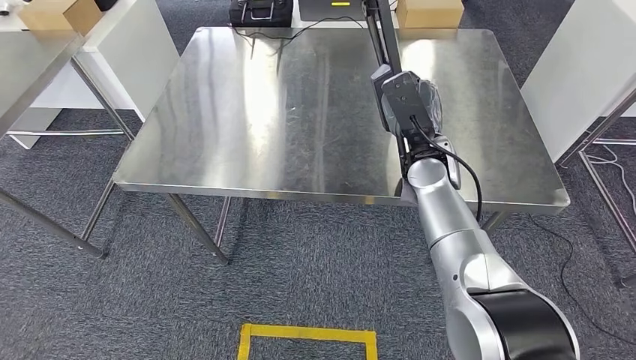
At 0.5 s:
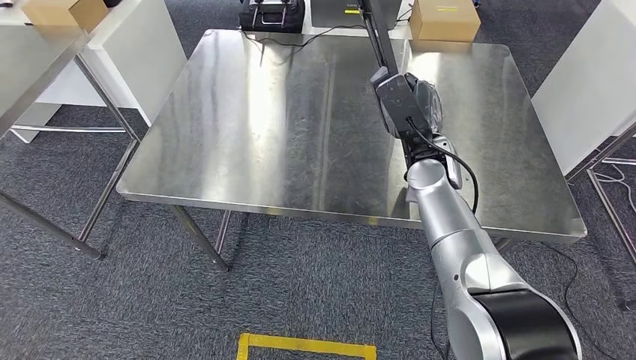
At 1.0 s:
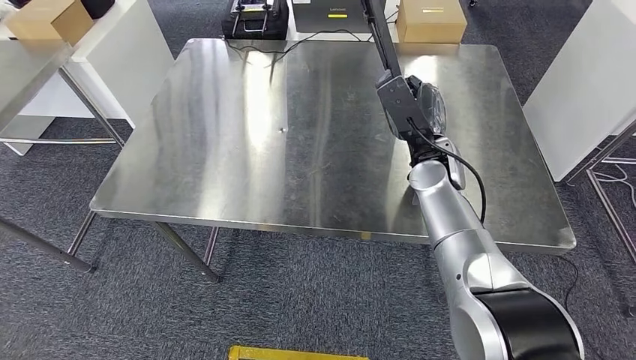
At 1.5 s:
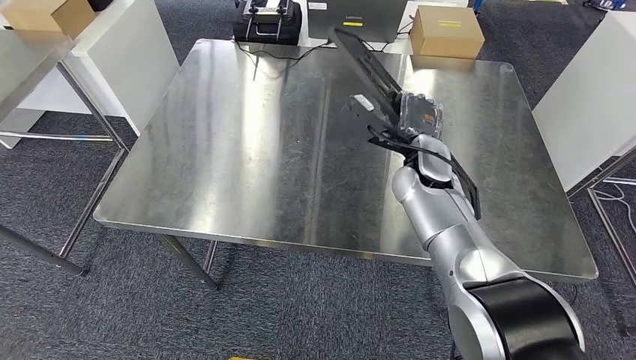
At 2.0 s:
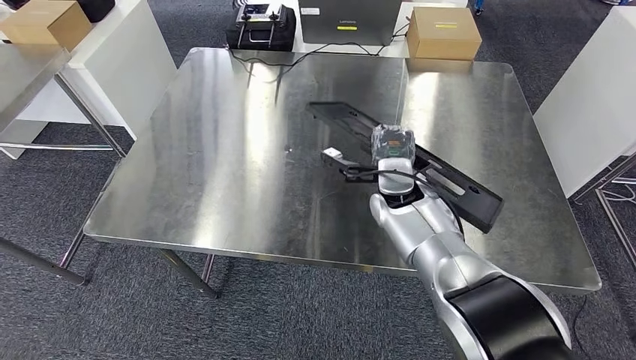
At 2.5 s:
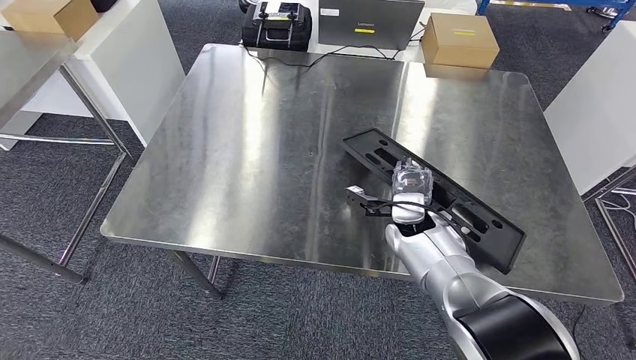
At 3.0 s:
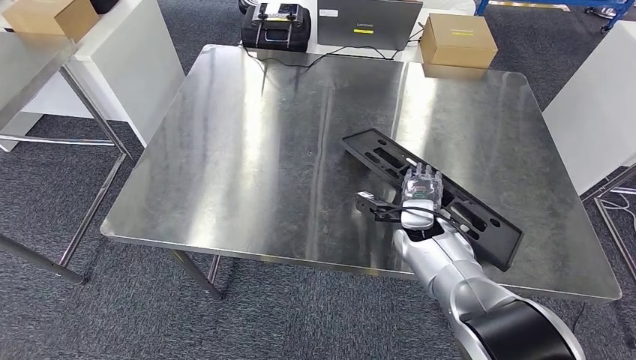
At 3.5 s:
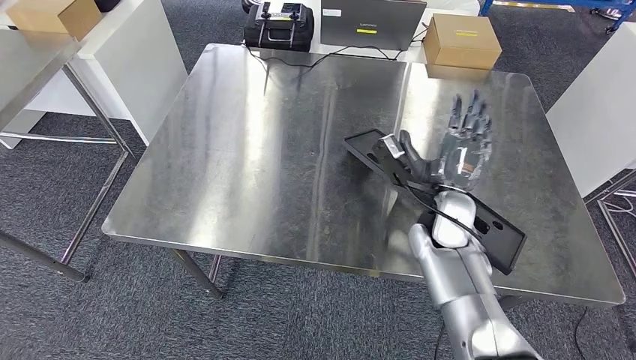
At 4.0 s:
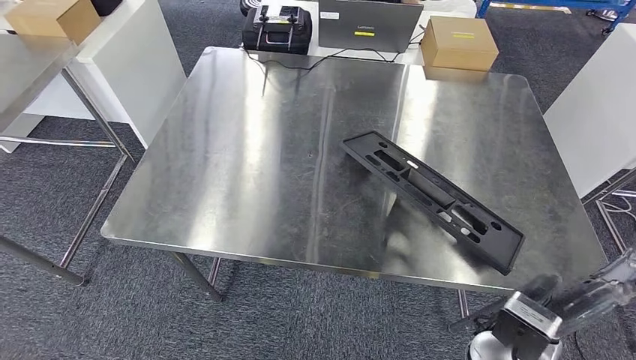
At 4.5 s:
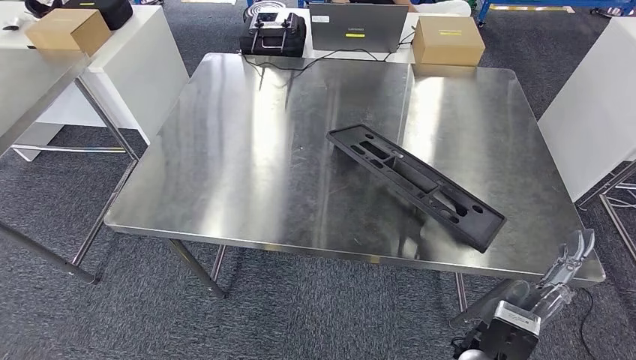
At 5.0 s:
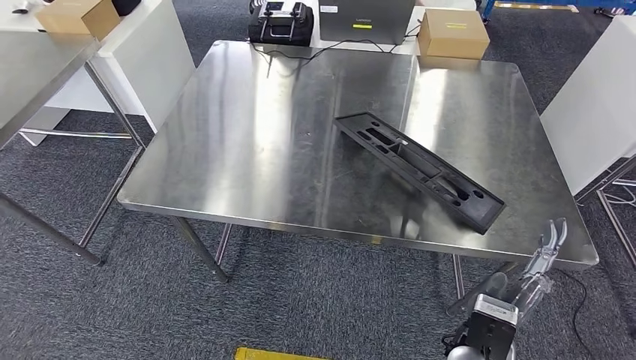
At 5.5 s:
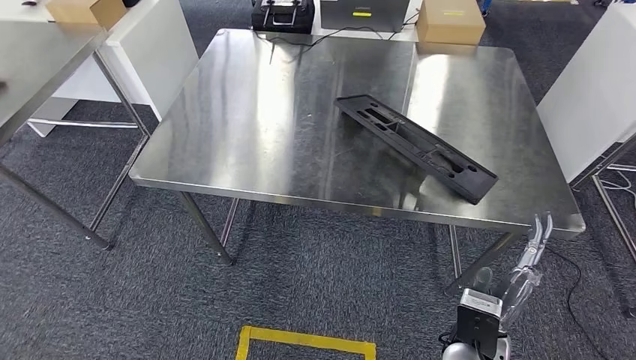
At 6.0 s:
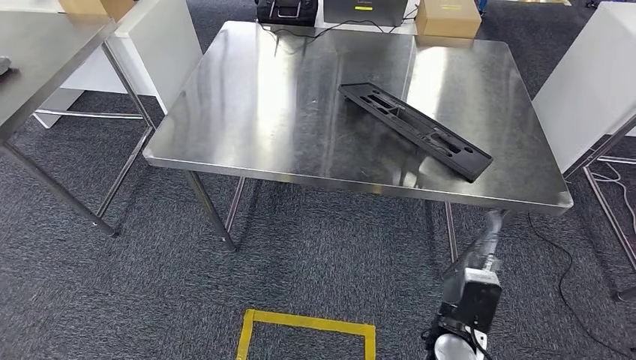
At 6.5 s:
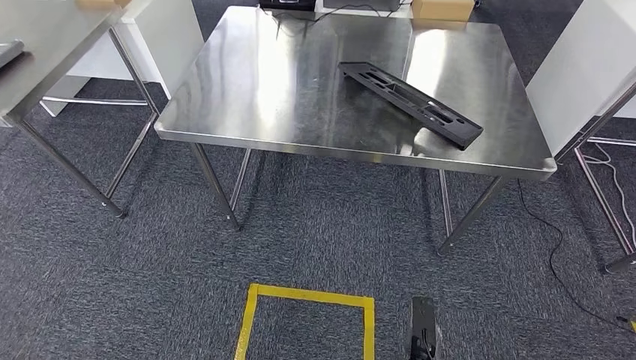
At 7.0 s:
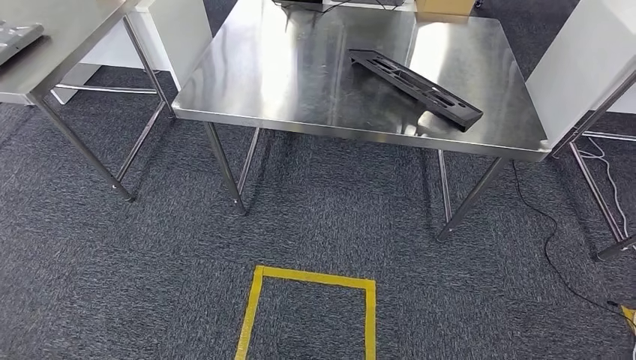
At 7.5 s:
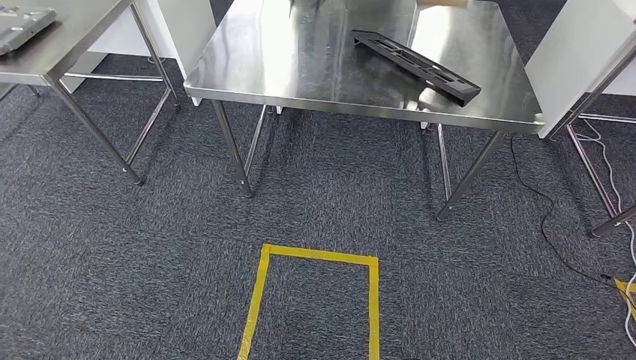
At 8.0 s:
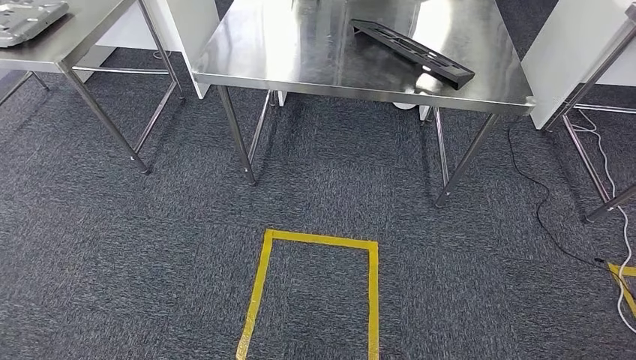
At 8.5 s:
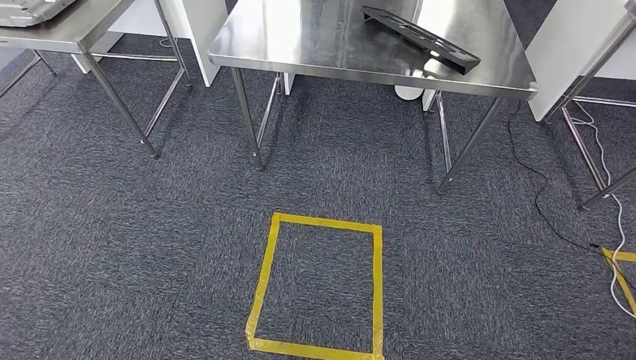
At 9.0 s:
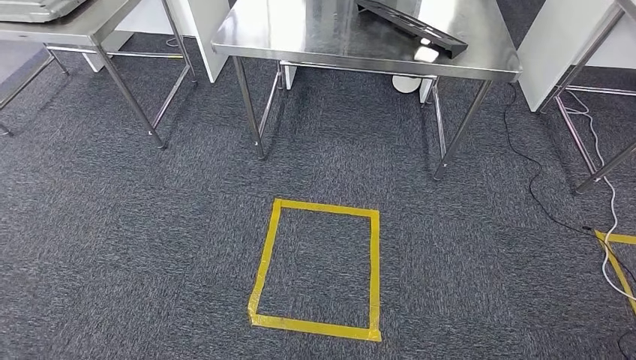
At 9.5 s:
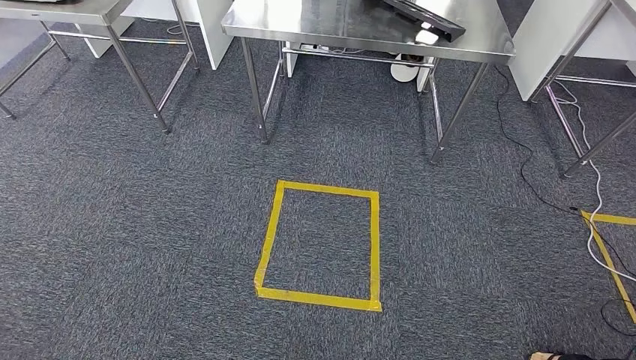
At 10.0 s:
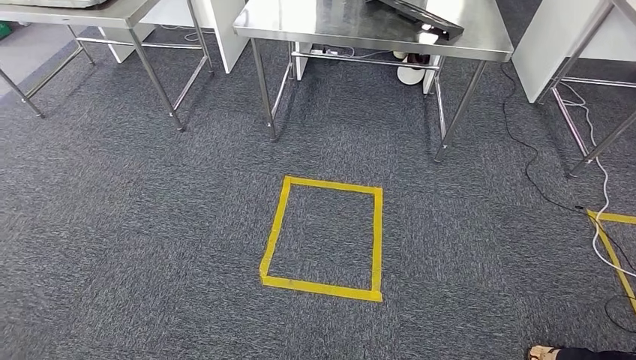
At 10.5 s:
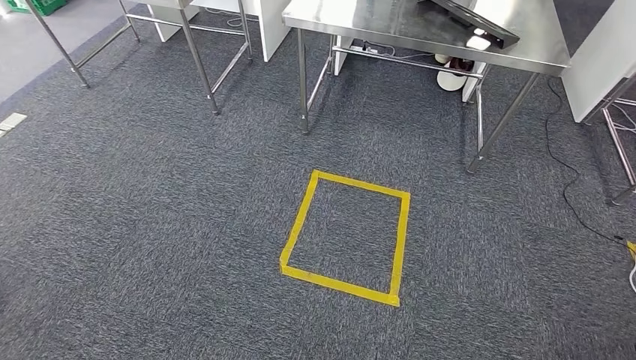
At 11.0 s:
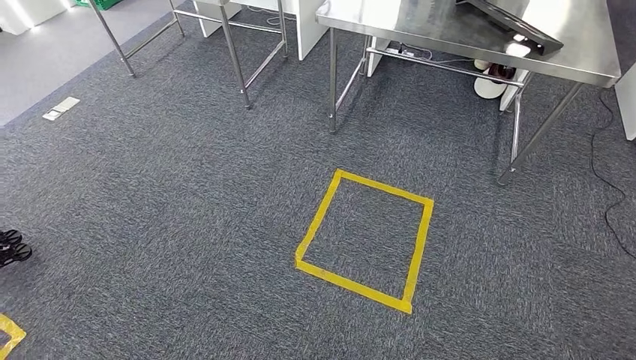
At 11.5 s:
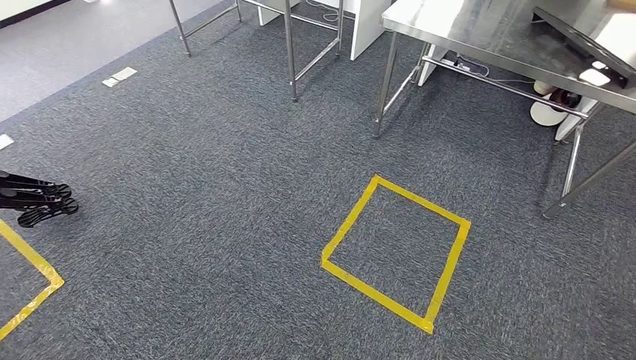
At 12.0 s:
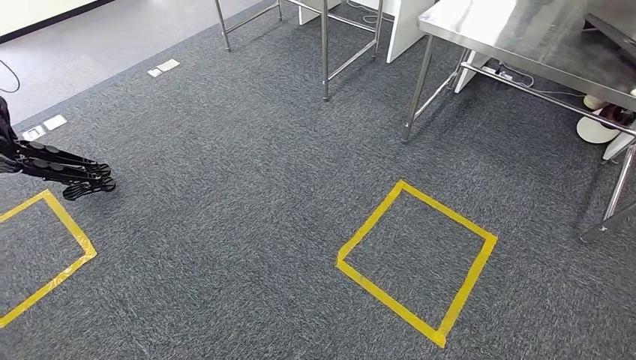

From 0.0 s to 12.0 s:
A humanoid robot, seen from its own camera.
Step, from 0.0 s to 4.5 s: Insert the large material into the corresponding slot on the workbench.

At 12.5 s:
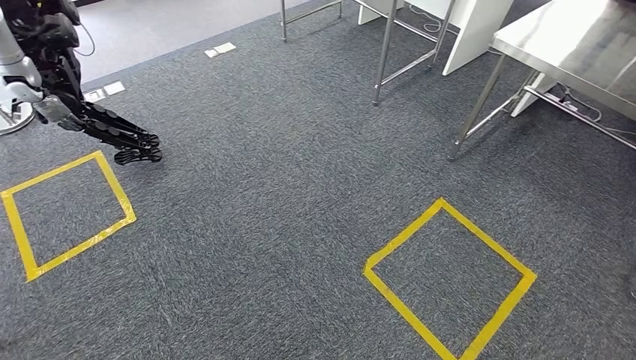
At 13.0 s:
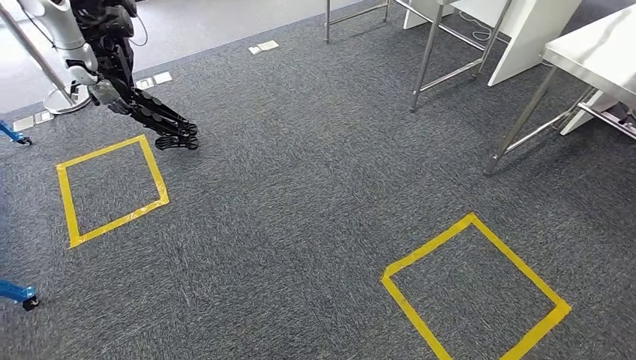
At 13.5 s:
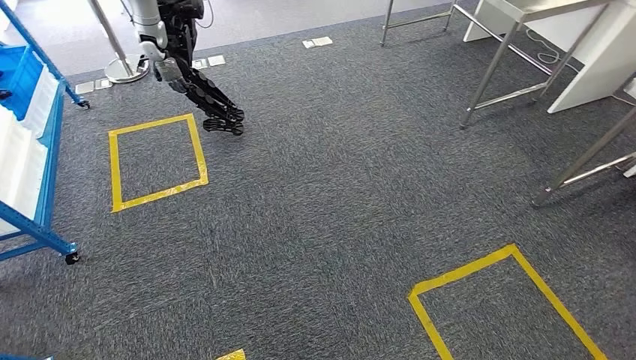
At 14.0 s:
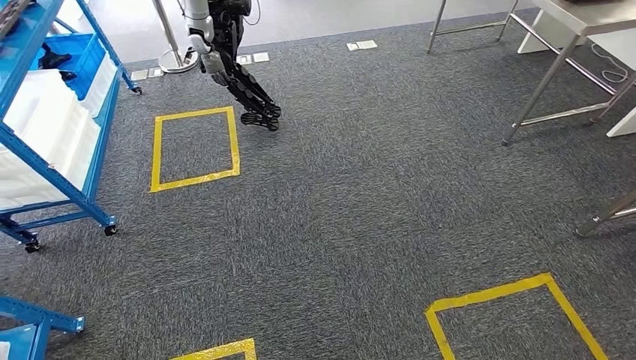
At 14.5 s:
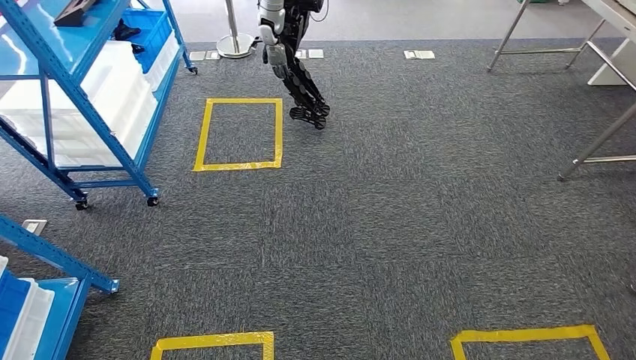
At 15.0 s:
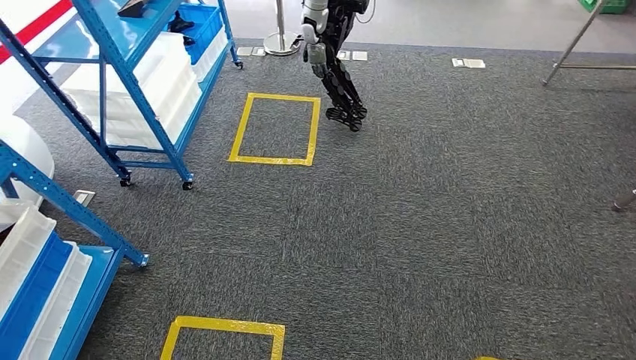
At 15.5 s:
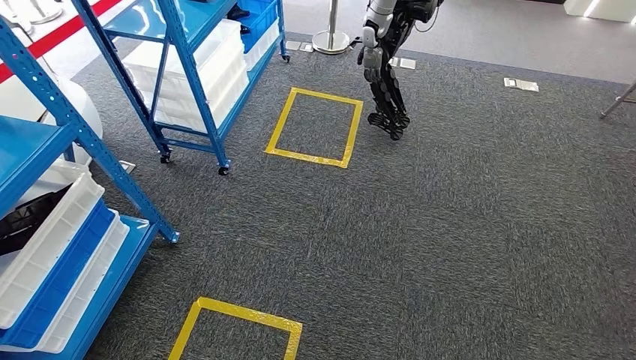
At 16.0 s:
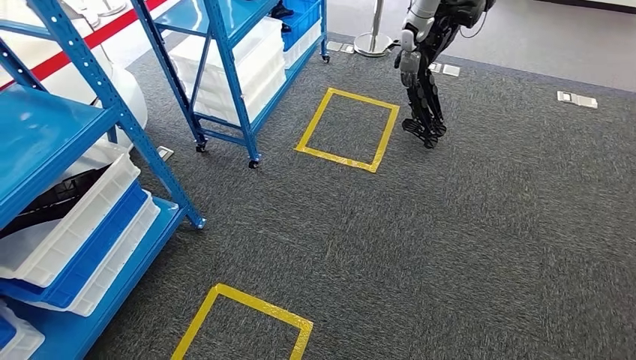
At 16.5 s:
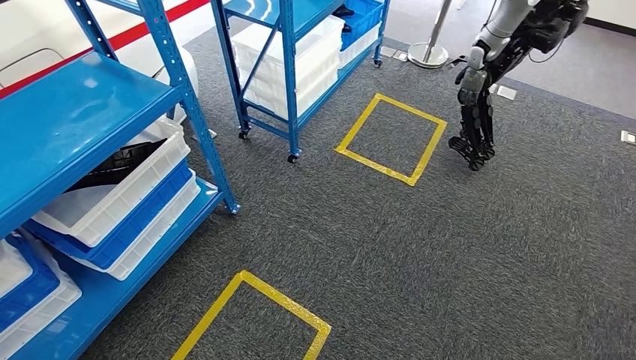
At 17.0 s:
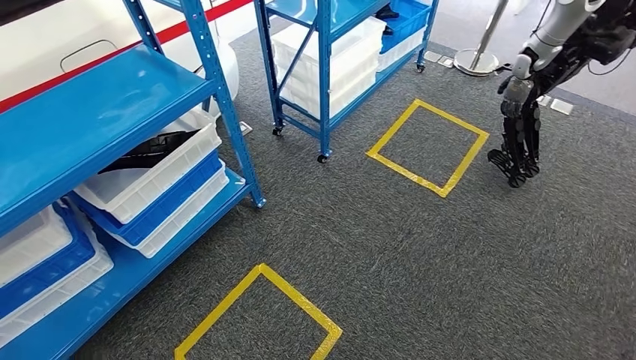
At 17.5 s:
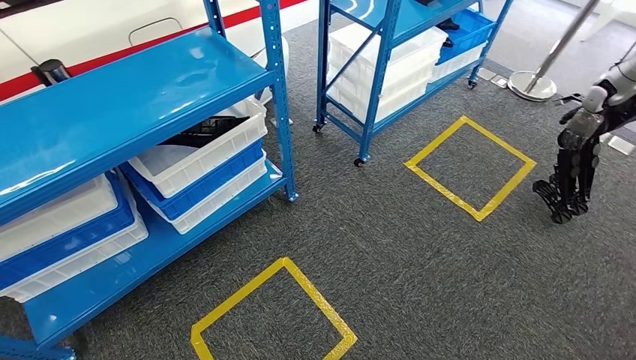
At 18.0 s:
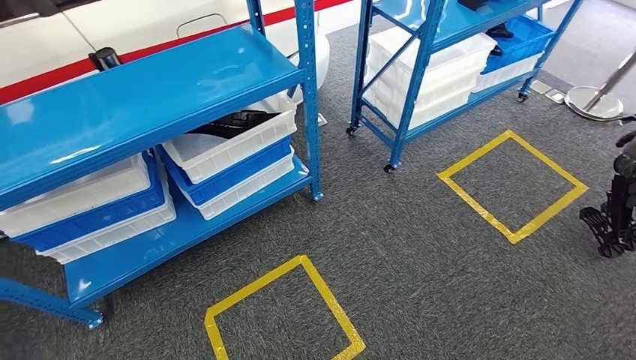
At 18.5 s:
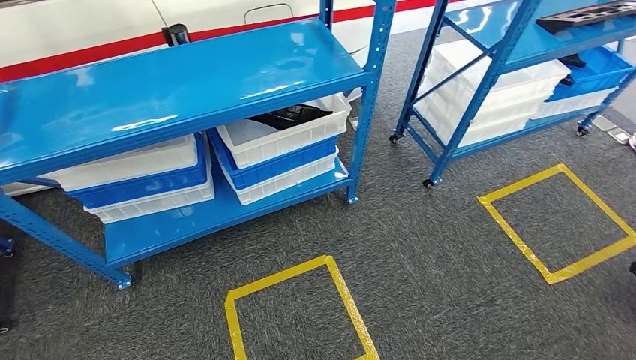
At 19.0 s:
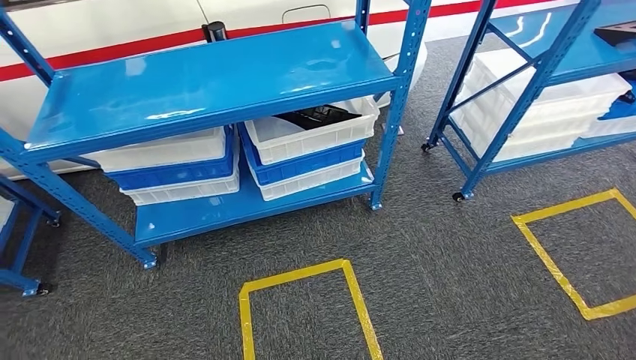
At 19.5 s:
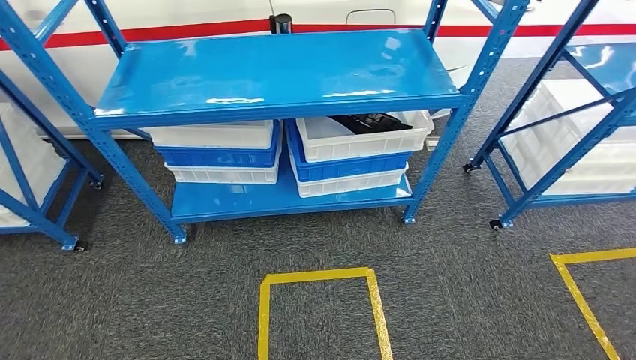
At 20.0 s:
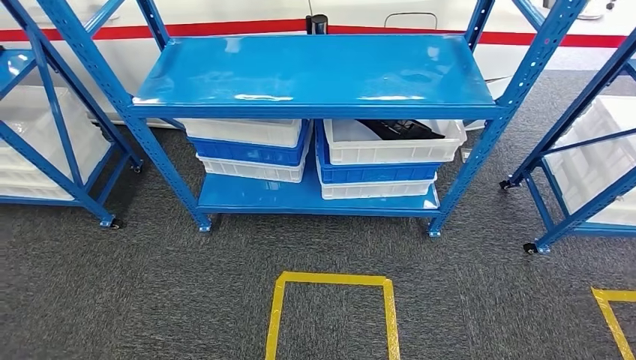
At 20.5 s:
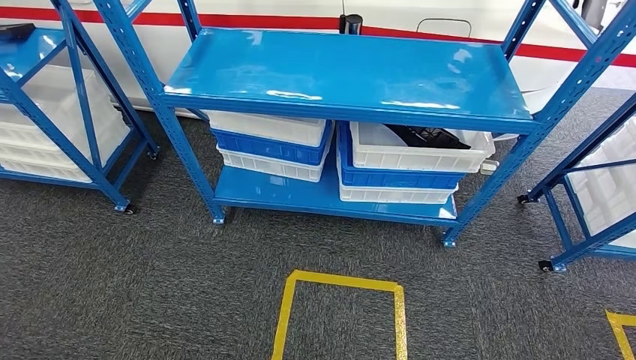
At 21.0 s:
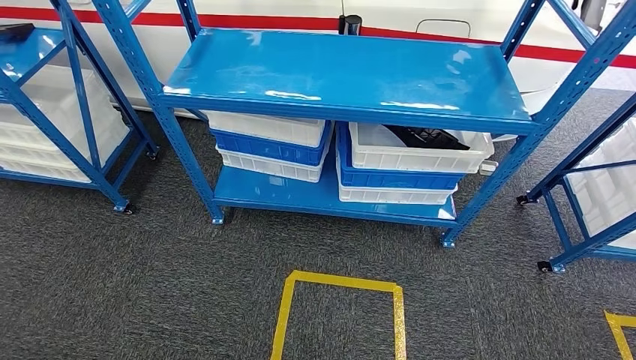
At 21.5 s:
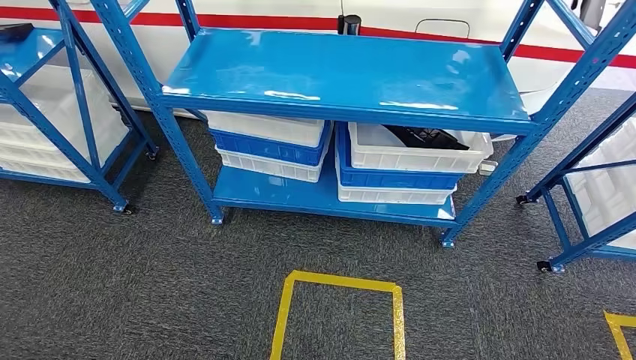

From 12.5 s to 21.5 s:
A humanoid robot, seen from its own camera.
Step, from 12.5 s to 21.0 s: Return to the initial position at the shelf.
